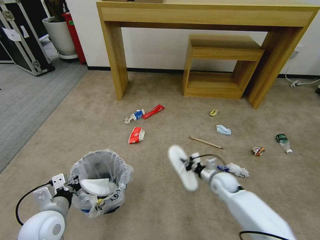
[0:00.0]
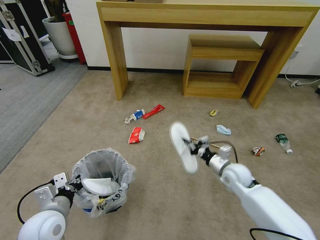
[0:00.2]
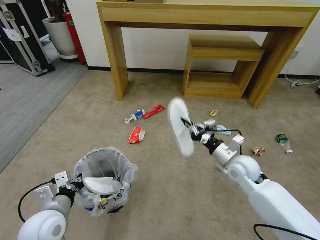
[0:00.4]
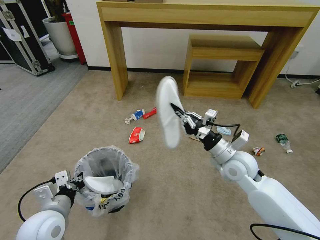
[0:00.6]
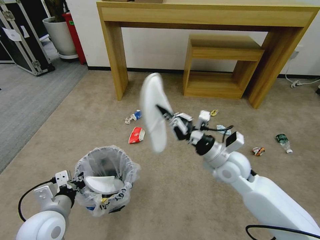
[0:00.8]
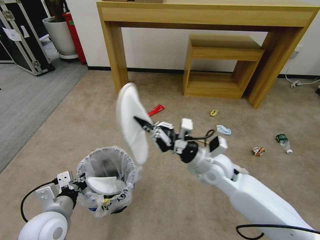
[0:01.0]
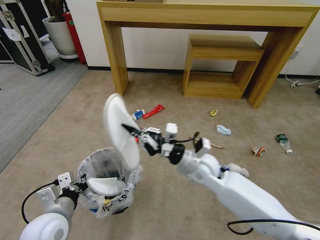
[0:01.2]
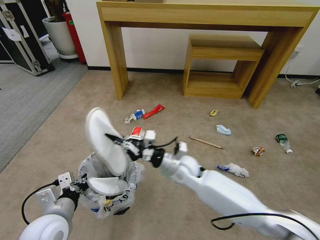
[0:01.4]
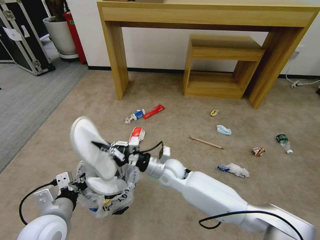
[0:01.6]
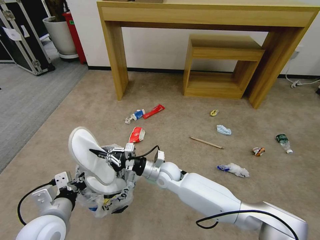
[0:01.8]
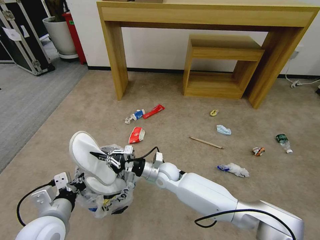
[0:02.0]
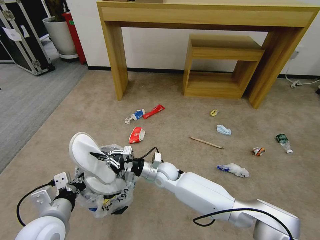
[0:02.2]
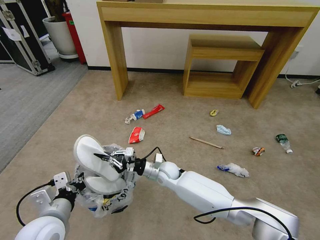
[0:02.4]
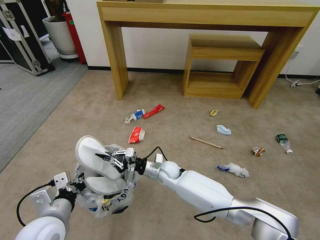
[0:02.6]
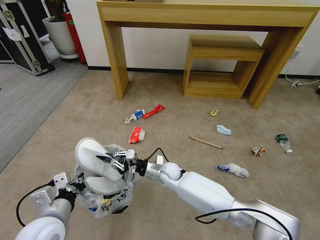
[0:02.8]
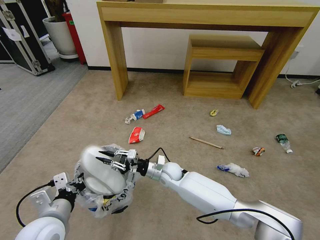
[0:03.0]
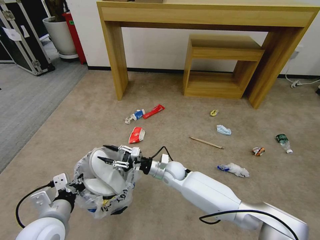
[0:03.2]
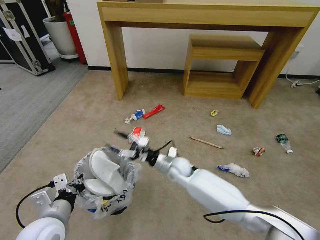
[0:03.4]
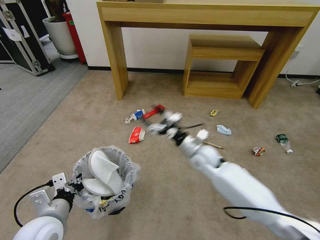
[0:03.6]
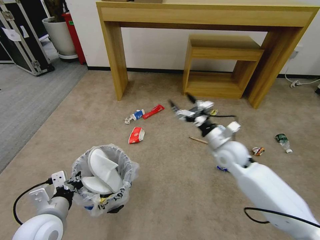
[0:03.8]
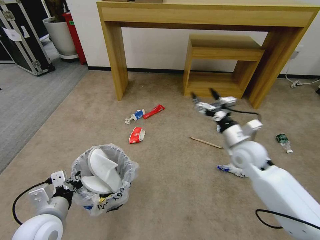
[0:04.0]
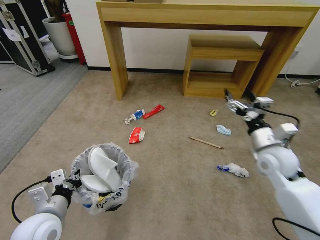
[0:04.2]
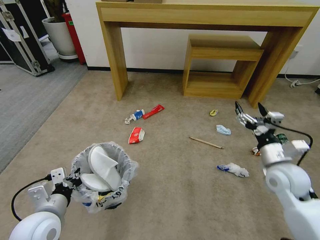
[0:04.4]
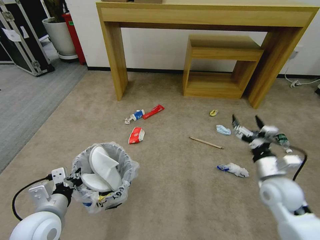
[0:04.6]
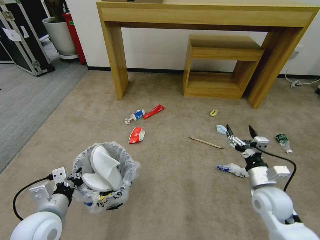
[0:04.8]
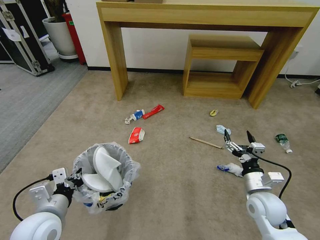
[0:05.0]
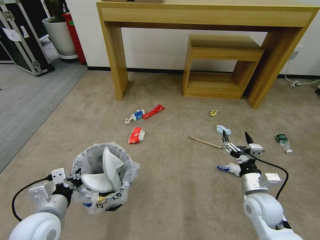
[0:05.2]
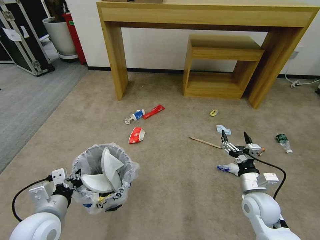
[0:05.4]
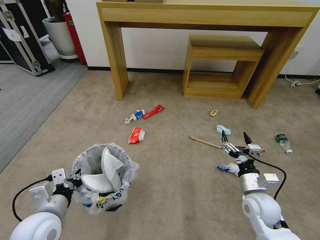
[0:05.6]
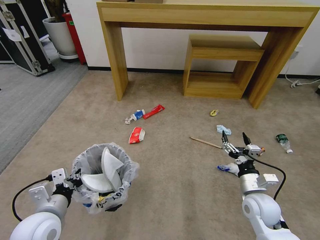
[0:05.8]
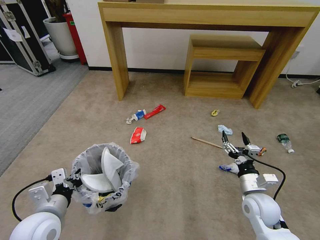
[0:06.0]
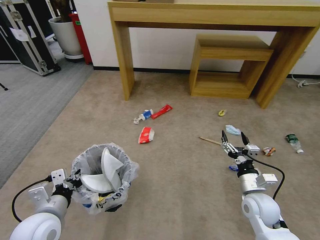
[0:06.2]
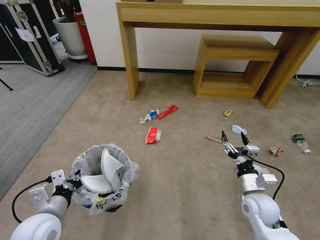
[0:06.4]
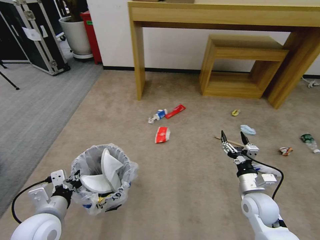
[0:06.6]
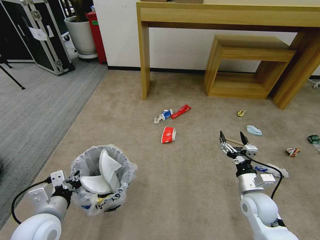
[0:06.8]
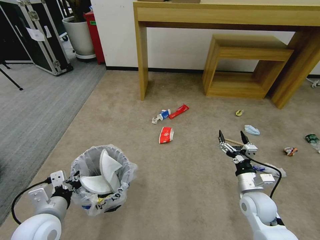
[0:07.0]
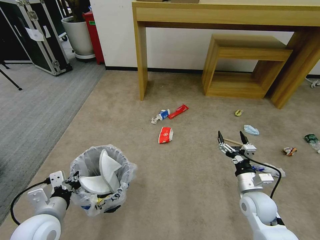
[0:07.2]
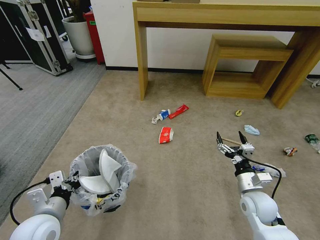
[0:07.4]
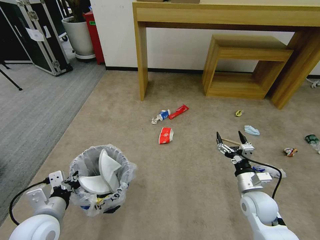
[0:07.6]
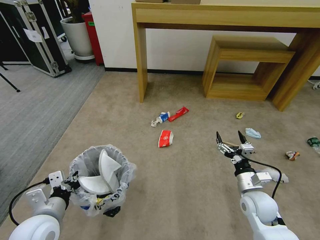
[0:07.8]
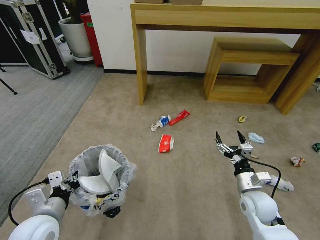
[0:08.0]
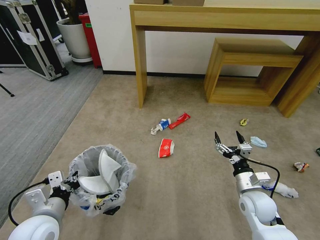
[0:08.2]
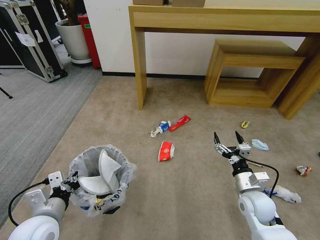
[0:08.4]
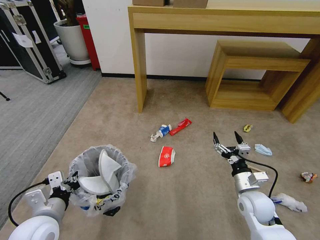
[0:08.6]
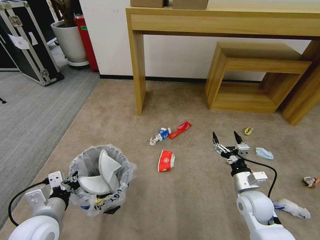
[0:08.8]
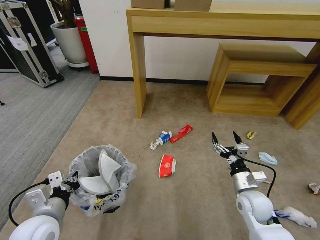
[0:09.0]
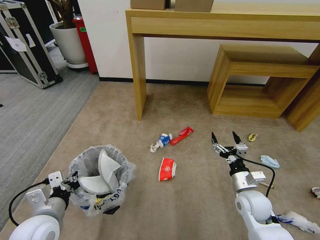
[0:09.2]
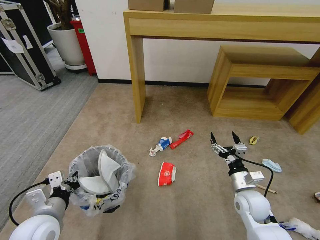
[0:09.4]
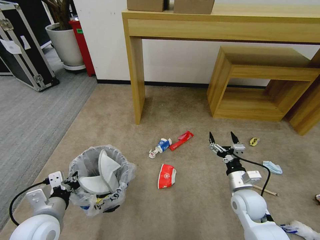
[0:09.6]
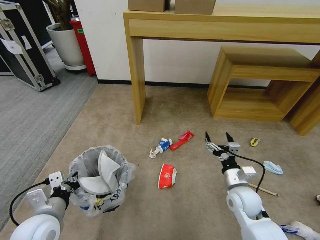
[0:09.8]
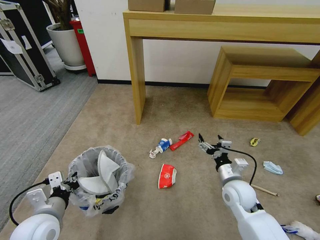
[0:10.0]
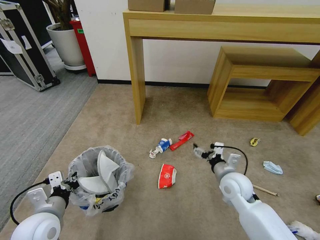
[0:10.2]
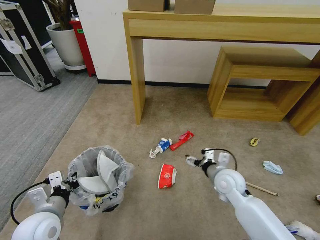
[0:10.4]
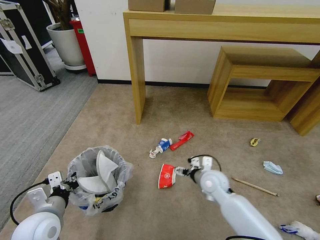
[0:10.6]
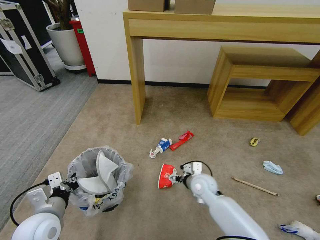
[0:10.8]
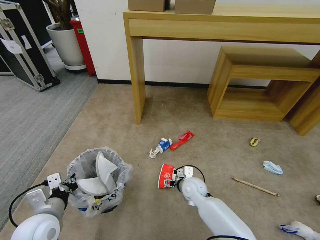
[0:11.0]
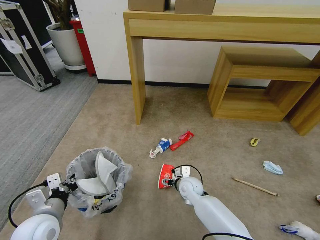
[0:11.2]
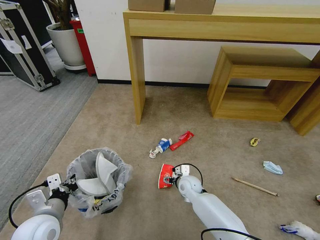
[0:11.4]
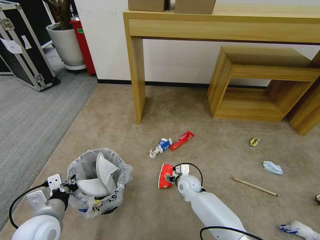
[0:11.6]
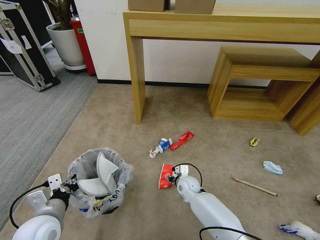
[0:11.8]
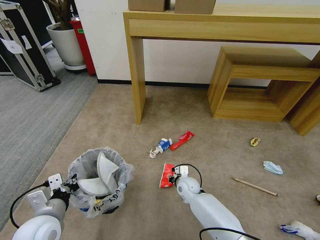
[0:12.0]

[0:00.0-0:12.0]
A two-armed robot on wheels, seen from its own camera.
Task of the whole recording: Pick up the trash bin and place the garbage on the floor into it.
0:00.0 to 0:01.6: The right gripper goes about 25 cm to the left and upward.
0:01.6 to 0:03.0: The right gripper shifts roughly 5 cm downward.
0:03.0 to 0:04.4: The right gripper is displaced to the right and upward by about 35 cm, and opens.
0:04.4 to 0:06.0: The right gripper heads downward, covering roughly 10 cm.
0:09.0 to 0:10.4: The right gripper moves to the left and forward, approximately 10 cm.
0:10.4 to 0:12.0: The right gripper travels downward and to the left by some 20 cm, and closes up.

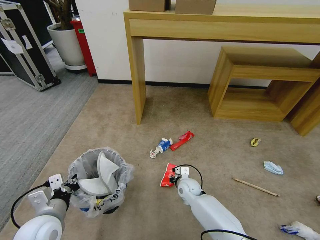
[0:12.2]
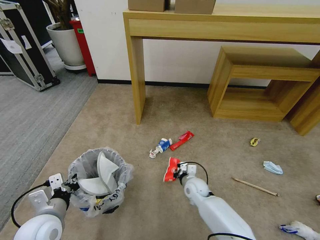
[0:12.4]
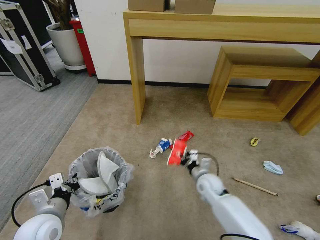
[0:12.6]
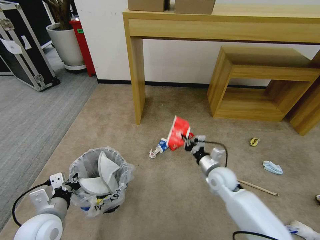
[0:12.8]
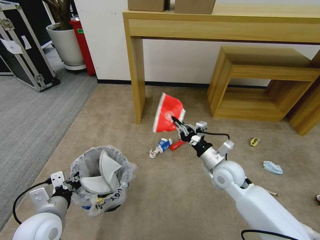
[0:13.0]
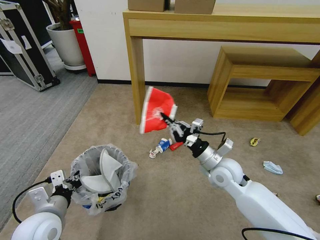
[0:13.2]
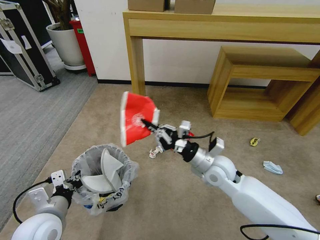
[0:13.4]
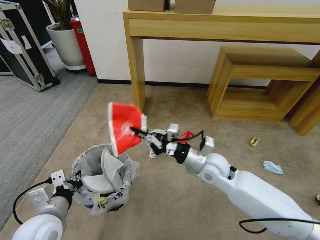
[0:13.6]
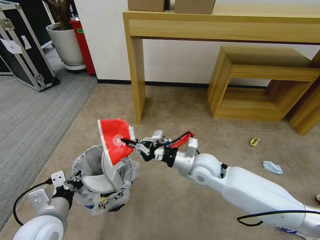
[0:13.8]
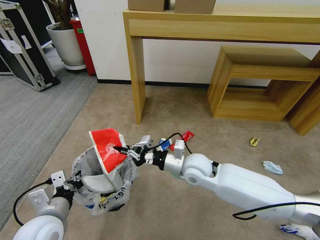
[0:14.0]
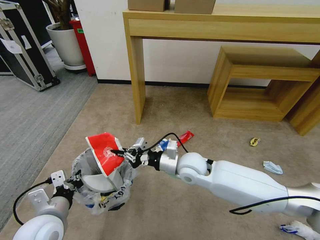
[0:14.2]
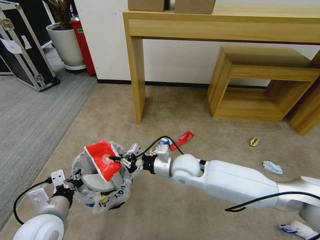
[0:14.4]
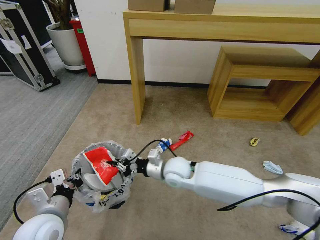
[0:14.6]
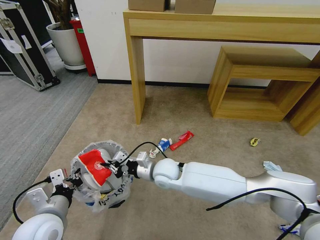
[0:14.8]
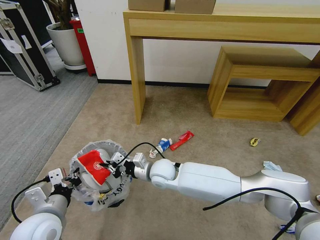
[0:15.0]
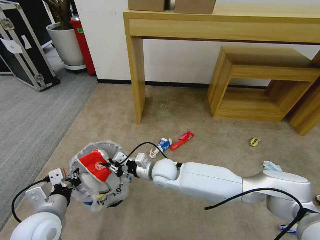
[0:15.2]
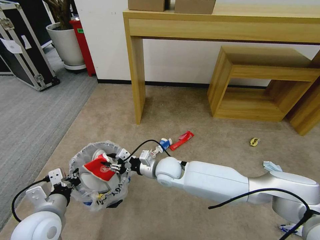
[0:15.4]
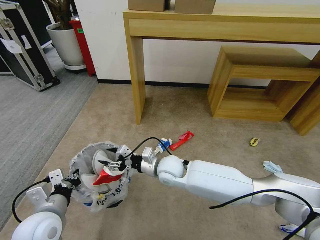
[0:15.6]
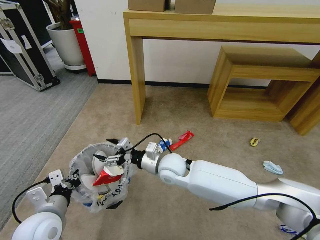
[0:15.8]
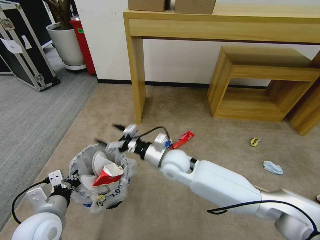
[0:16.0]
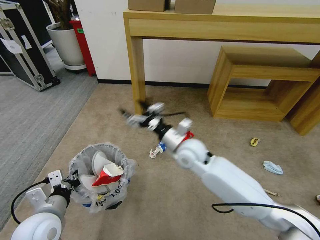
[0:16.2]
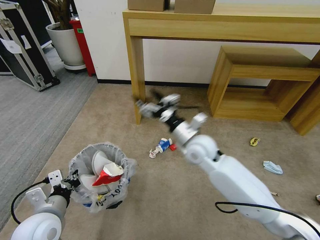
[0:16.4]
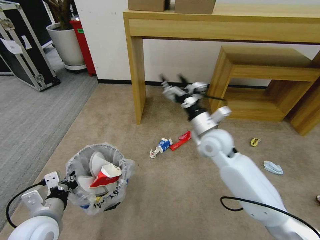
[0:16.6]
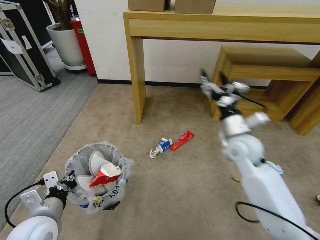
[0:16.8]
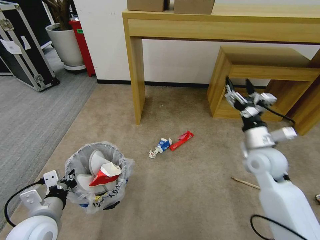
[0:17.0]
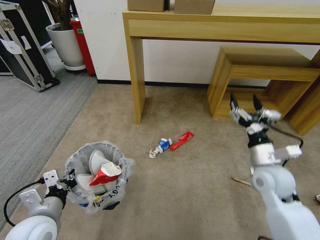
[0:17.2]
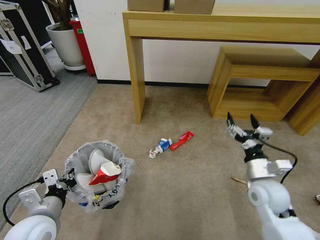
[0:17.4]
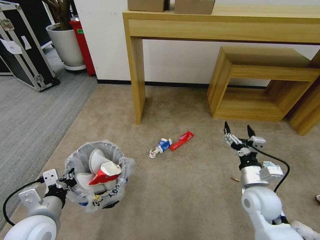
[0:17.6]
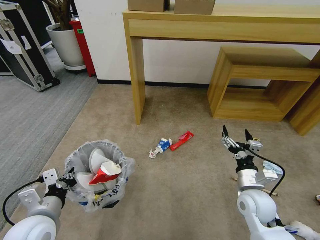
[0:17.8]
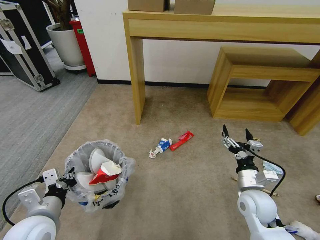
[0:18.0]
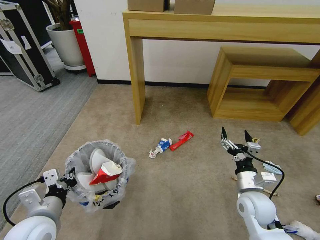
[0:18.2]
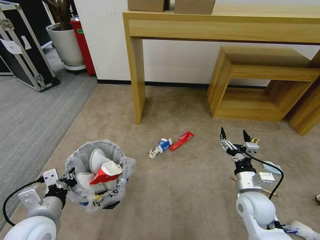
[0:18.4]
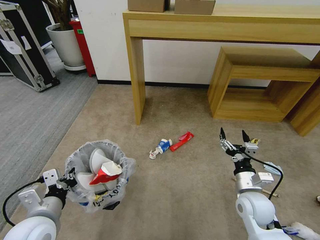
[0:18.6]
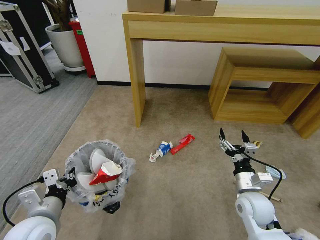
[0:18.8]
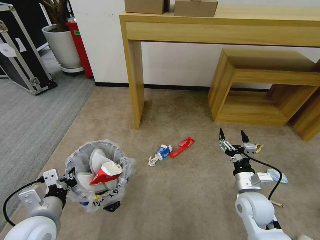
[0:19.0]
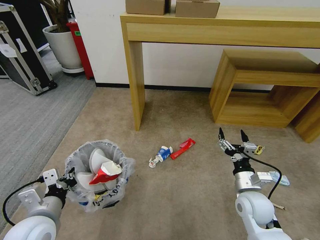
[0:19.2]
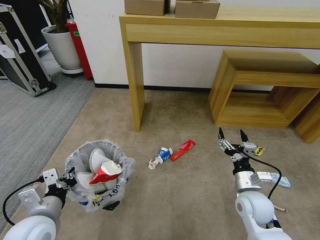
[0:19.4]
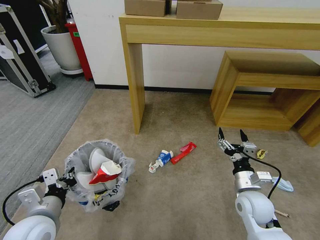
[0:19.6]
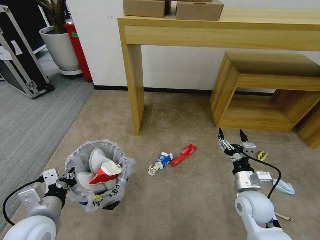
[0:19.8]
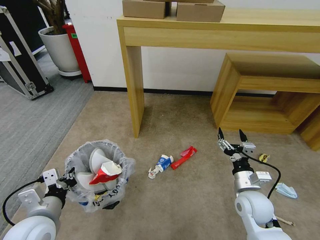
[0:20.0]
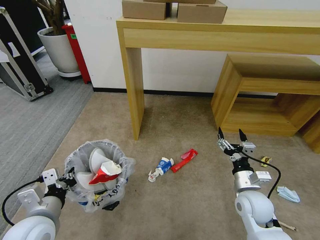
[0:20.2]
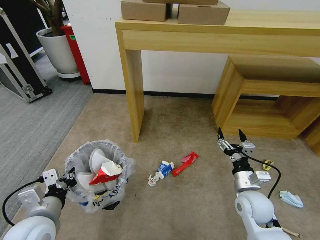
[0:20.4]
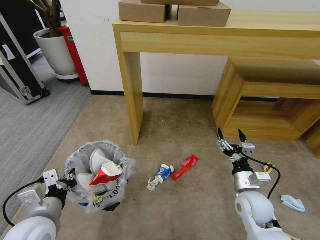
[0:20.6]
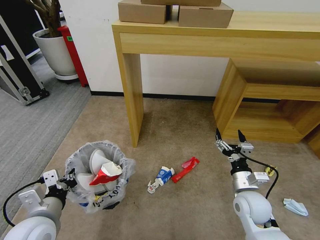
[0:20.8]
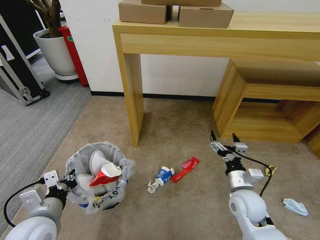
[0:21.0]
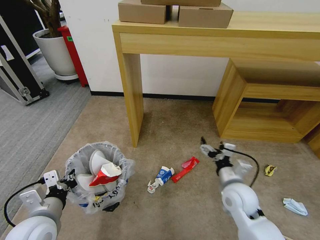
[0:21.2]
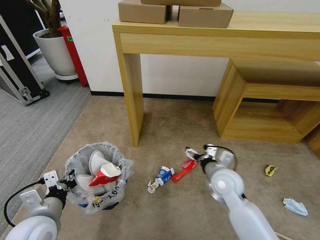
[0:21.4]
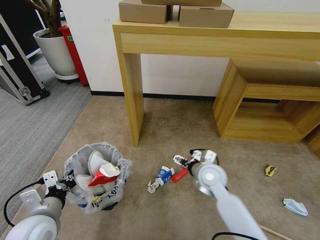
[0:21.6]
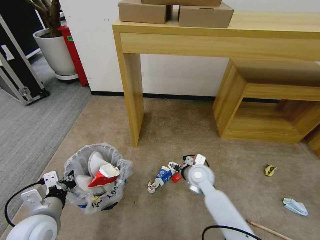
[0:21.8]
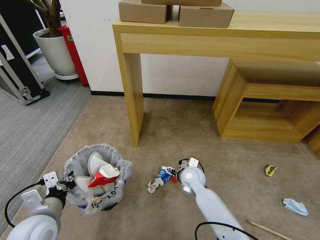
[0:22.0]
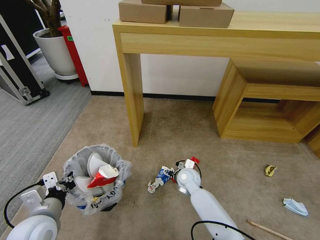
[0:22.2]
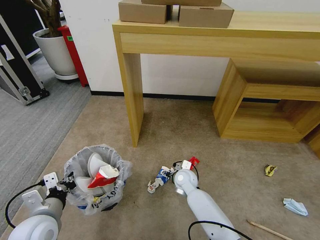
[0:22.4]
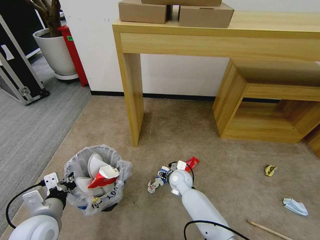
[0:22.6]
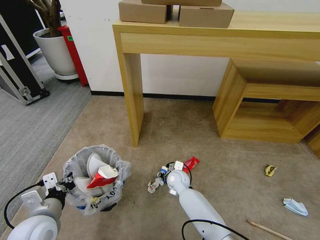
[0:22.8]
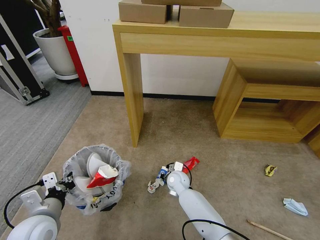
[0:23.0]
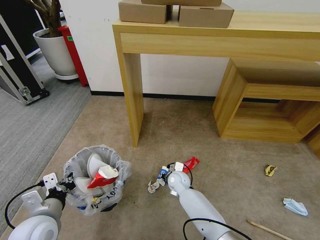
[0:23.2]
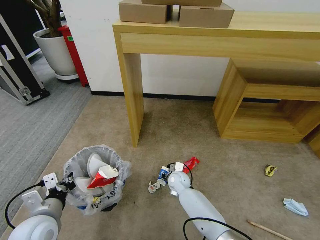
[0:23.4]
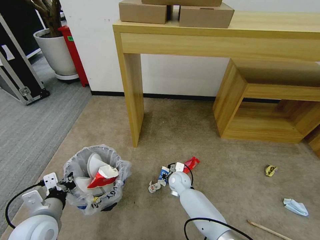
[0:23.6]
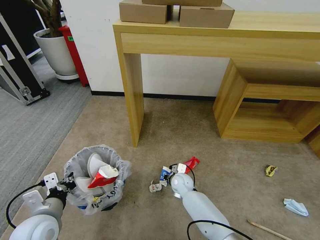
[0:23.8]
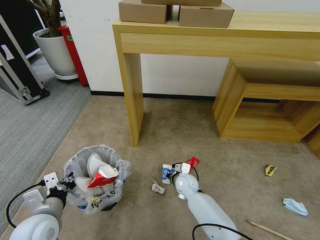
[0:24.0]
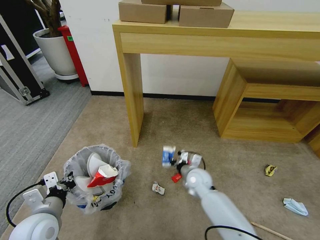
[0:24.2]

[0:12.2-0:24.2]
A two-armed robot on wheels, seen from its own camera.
Task of the whole recording: Pick up the trash bin and place the garbage on the floor into it.
0:12.2 to 0:13.8: The right gripper heads upward, covering some 25 cm.
0:13.8 to 0:15.2: The right gripper heads to the left and downward, covering approximately 15 cm.
0:15.2 to 0:16.6: The right gripper is displaced to the right and upward by approximately 20 cm, and opens up.
0:16.6 to 0:18.2: The right gripper is displaced backward, downward and to the right by roughly 25 cm.
0:21.2 to 0:22.6: The right gripper is displaced to the left, forward and downward by about 25 cm.
0:22.6 to 0:24.2: The right gripper goes some 5 cm to the right, and closes.
